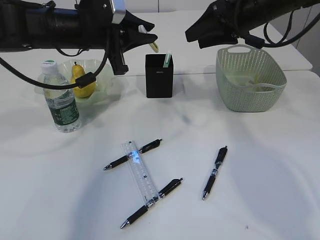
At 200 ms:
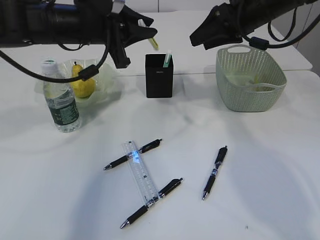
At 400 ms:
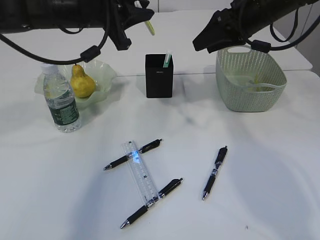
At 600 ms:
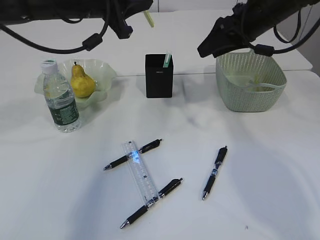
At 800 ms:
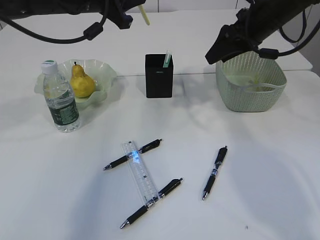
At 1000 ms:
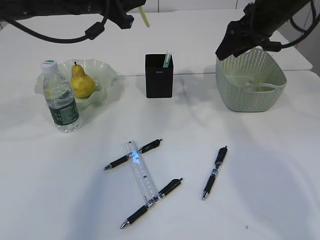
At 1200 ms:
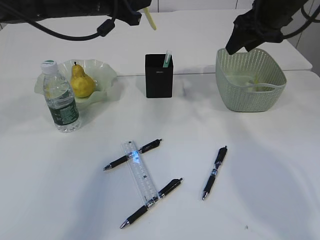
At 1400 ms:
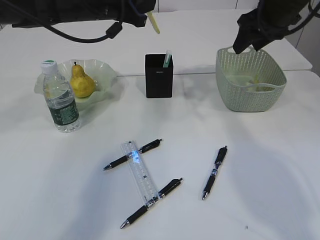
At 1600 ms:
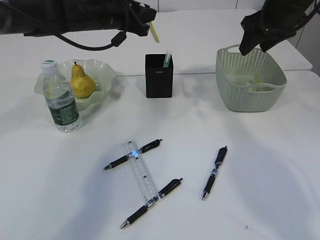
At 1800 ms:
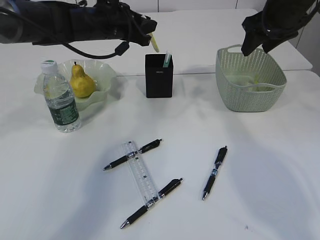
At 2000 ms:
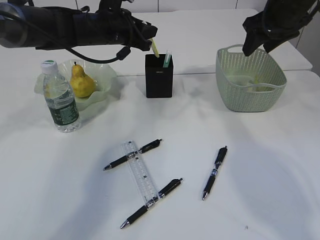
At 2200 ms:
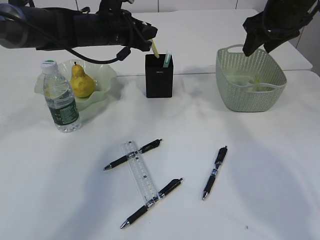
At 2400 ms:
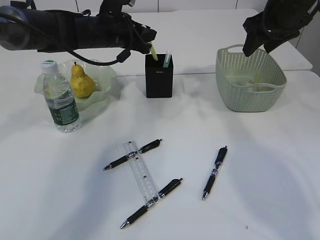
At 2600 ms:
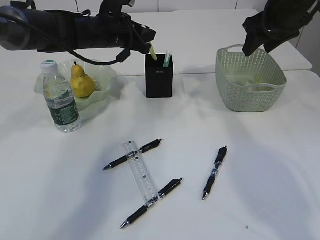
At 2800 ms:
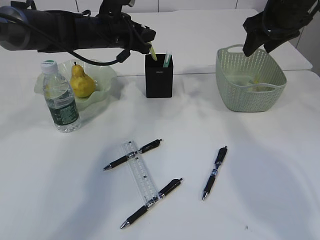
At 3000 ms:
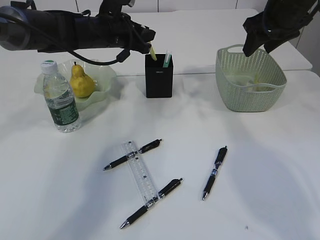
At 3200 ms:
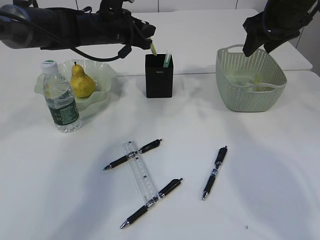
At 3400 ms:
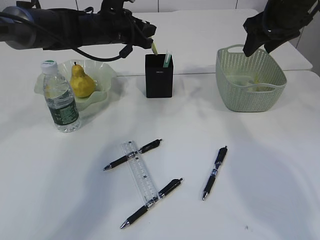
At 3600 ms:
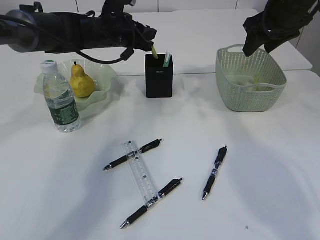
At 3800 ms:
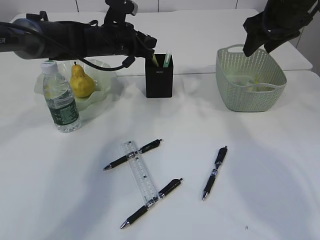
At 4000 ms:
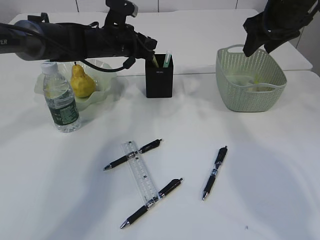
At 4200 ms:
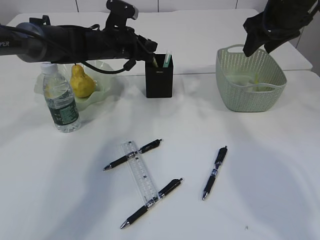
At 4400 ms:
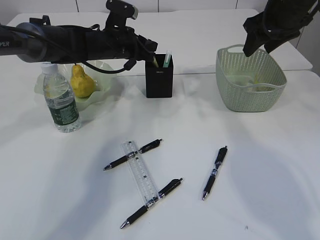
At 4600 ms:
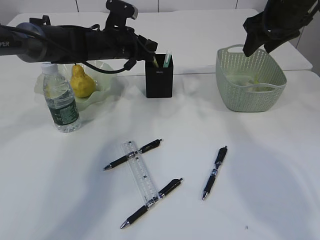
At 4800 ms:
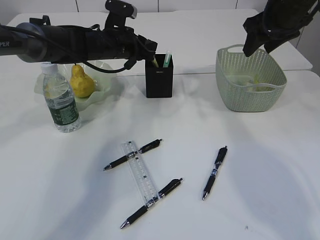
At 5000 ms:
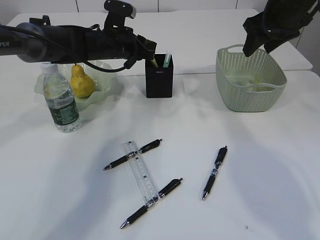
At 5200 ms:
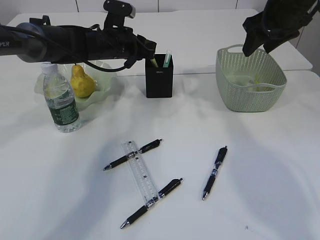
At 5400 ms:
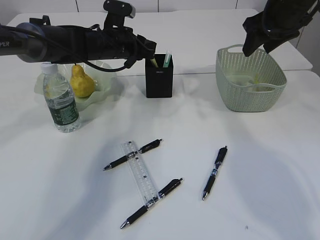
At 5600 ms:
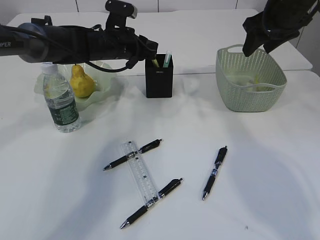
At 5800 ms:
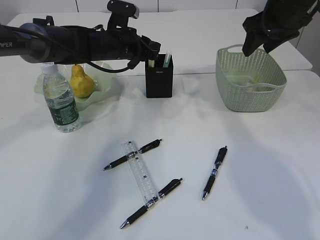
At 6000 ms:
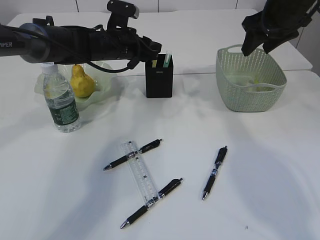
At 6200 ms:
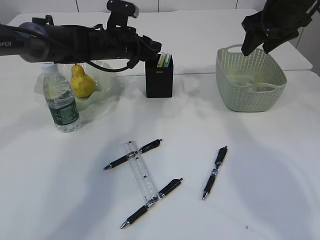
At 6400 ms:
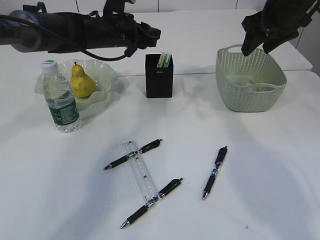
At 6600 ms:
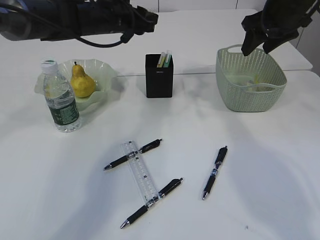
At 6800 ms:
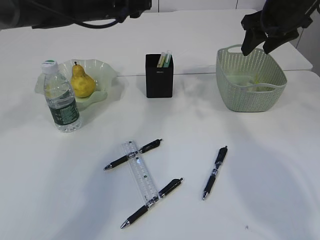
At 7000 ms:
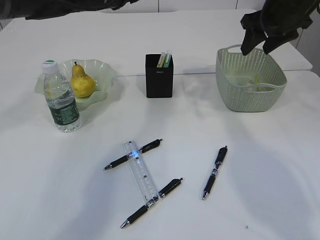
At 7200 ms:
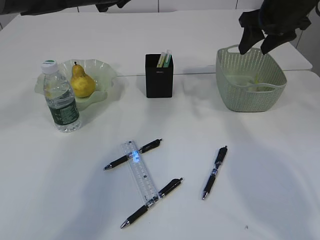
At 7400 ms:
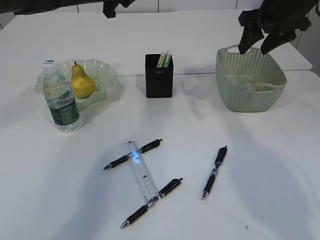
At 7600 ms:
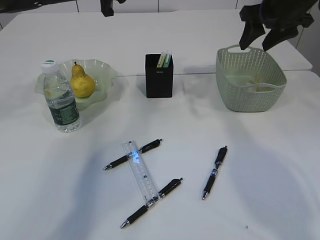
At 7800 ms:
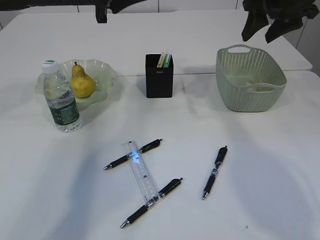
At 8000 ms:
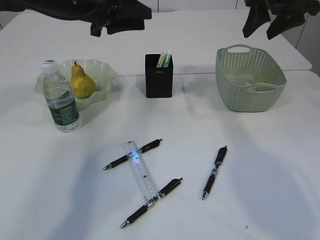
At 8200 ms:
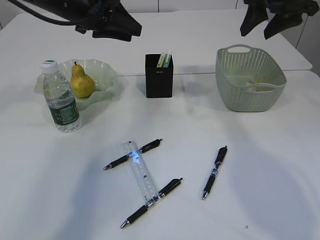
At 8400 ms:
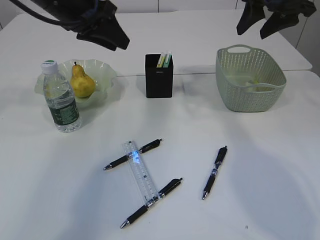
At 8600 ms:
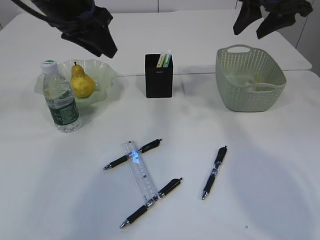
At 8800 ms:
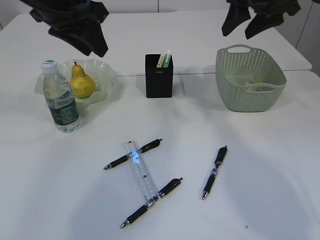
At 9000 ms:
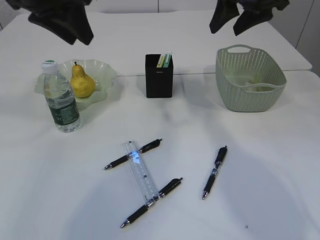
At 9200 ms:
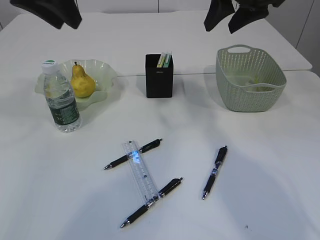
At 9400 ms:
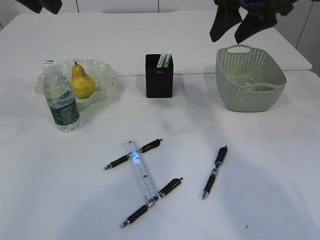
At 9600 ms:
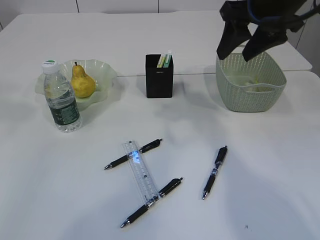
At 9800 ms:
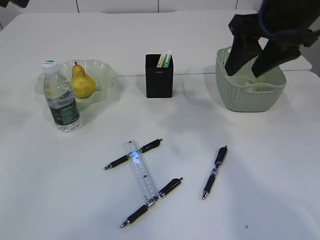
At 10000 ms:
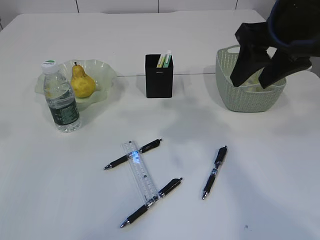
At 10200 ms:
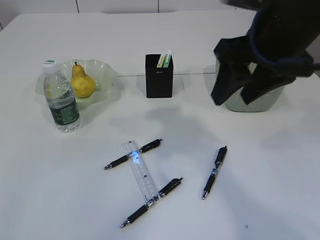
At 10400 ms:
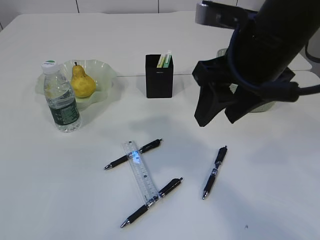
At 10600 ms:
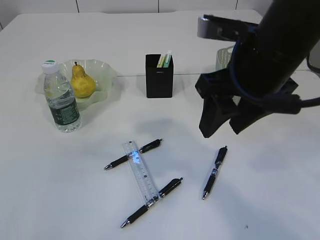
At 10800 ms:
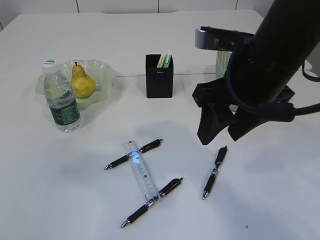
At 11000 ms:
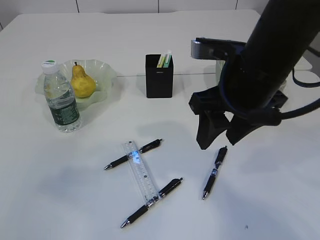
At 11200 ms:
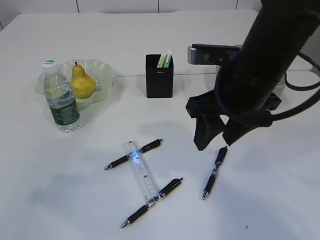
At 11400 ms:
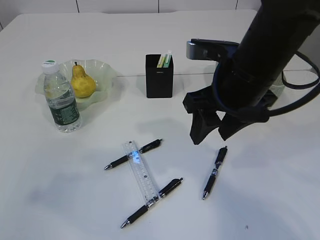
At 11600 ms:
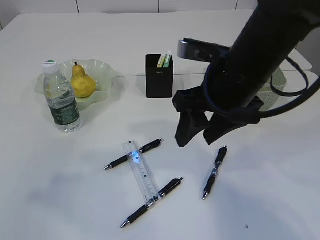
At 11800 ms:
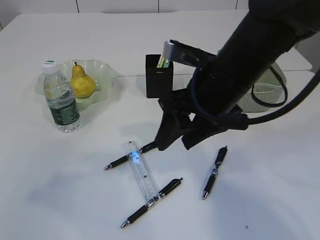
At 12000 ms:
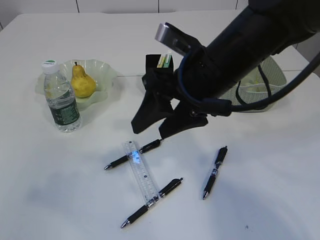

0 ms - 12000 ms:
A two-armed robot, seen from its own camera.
Step, 0 ms - 6600 ms: place the yellow knife into the pen holder.
0 ms - 1600 ms: The left gripper goes approximately 10 cm forward. Meanwhile the right gripper moves to the right, about 5 cm.
1600 ms - 3000 ms: The grippers make only small movements.
3000 ms - 4400 ms: The grippers move only a little.
4400 ms - 6000 ms: The two grippers keep their place.
6000 ms - 7600 ms: The left gripper travels upward by about 15 cm.
7600 ms - 9000 ms: The right gripper travels to the left by approximately 5 cm; the left gripper is displaced backward and upward by some 15 cm.
9000 ms - 10400 ms: The left gripper heads backward, to the left and upward, covering approximately 20 cm; the right gripper is displaced backward and to the left by some 15 cm.
10400 ms - 12000 ms: The left gripper heads backward and to the left, covering approximately 10 cm, while the right gripper moves some 5 cm.

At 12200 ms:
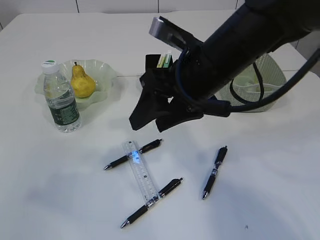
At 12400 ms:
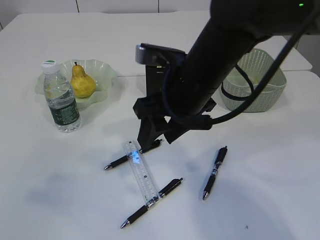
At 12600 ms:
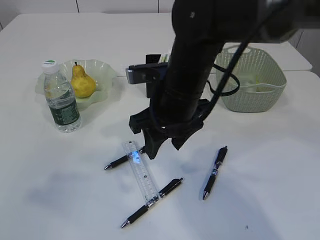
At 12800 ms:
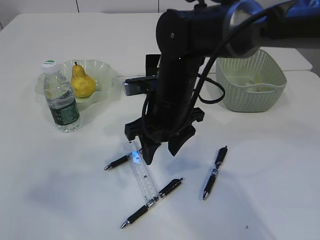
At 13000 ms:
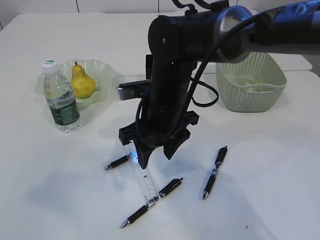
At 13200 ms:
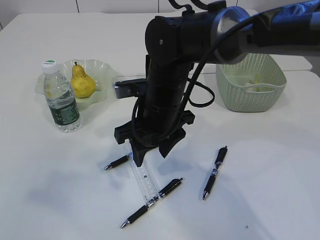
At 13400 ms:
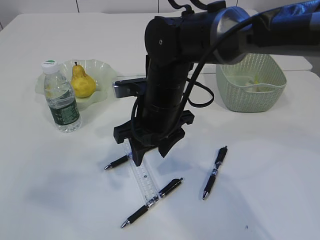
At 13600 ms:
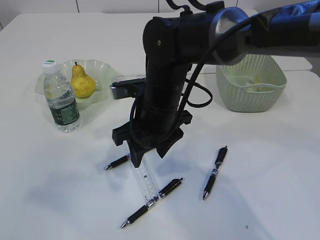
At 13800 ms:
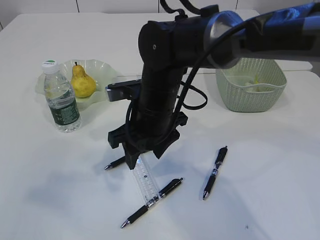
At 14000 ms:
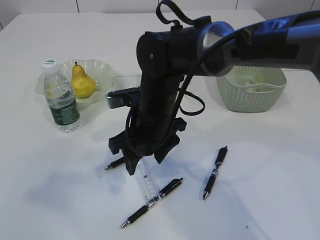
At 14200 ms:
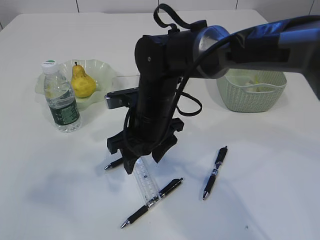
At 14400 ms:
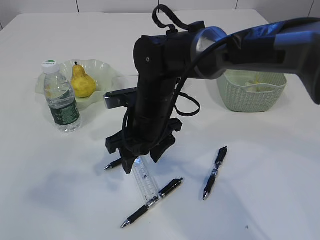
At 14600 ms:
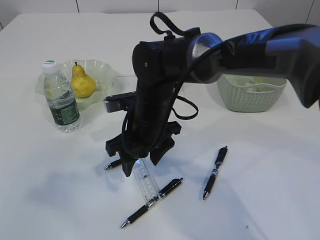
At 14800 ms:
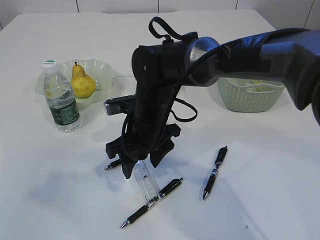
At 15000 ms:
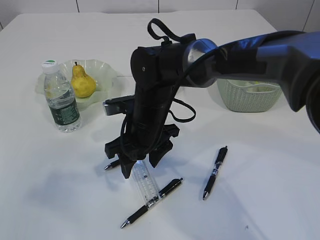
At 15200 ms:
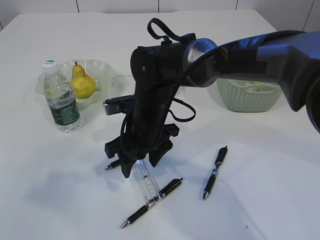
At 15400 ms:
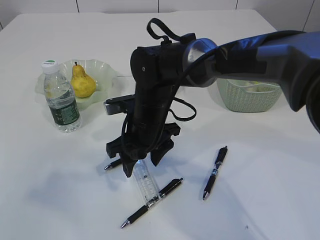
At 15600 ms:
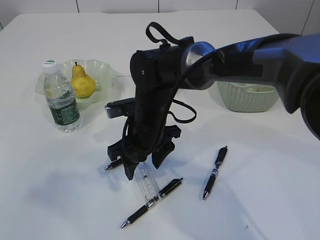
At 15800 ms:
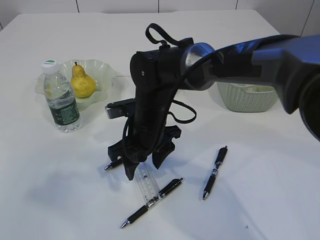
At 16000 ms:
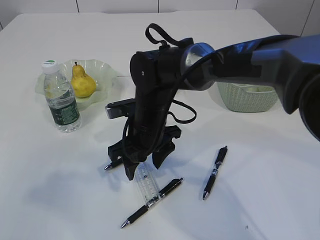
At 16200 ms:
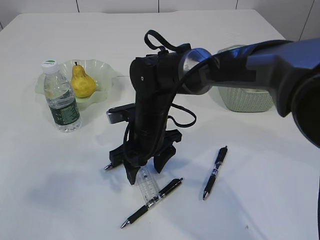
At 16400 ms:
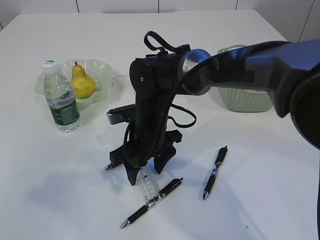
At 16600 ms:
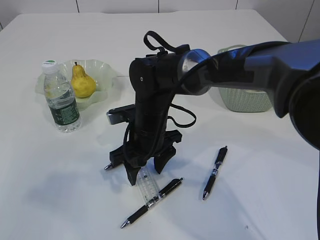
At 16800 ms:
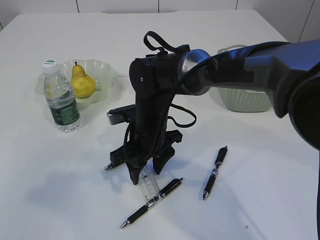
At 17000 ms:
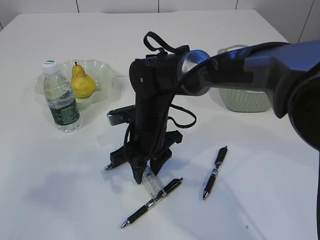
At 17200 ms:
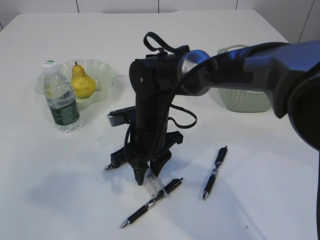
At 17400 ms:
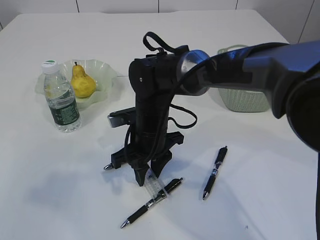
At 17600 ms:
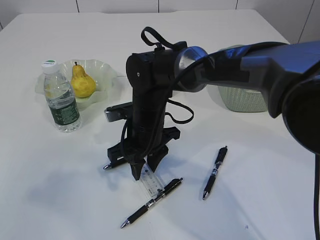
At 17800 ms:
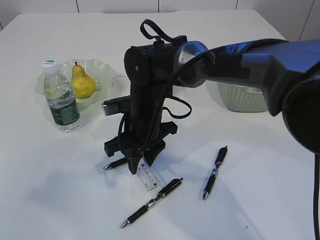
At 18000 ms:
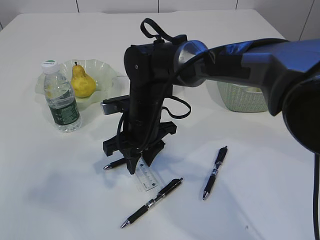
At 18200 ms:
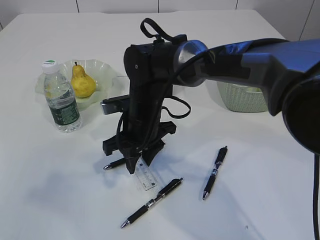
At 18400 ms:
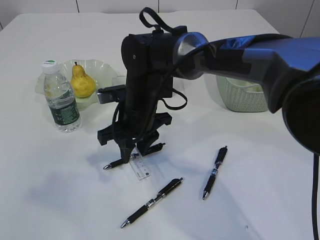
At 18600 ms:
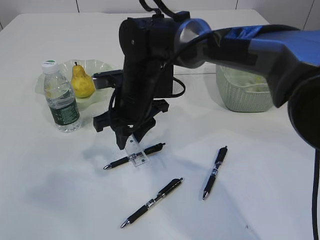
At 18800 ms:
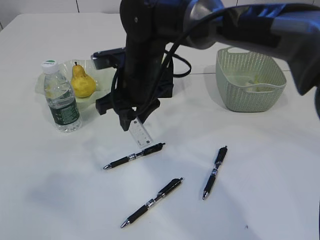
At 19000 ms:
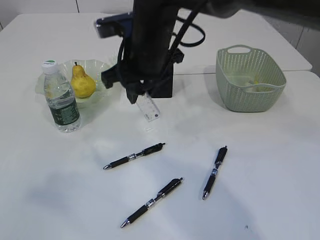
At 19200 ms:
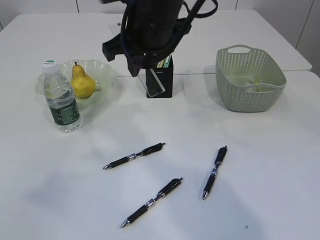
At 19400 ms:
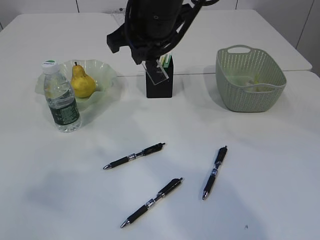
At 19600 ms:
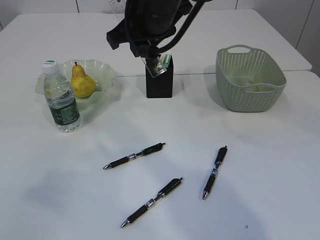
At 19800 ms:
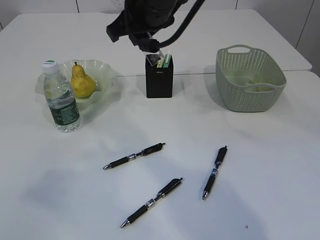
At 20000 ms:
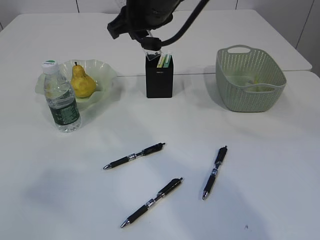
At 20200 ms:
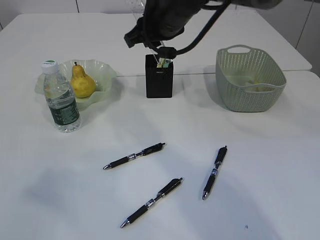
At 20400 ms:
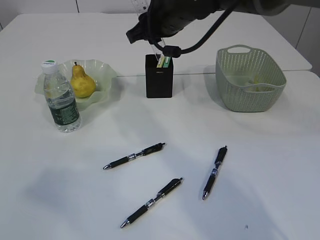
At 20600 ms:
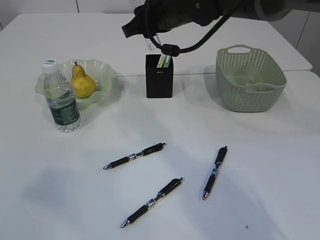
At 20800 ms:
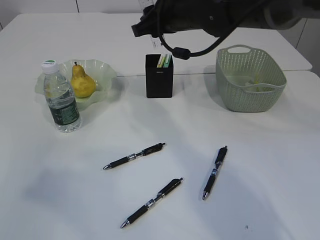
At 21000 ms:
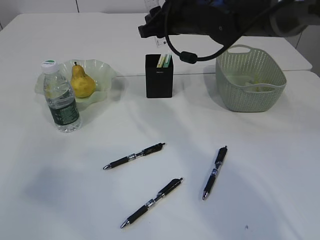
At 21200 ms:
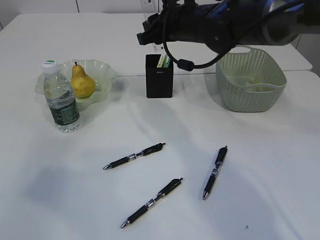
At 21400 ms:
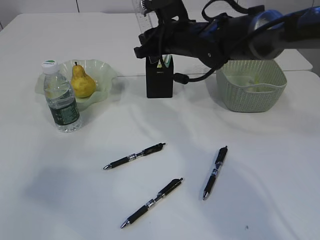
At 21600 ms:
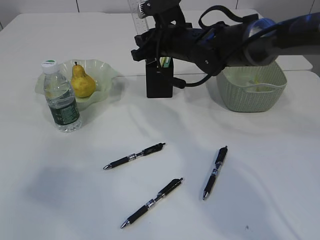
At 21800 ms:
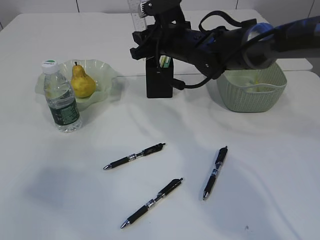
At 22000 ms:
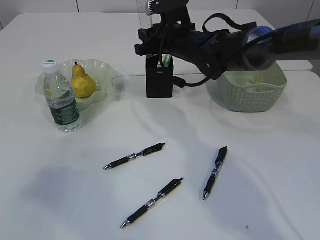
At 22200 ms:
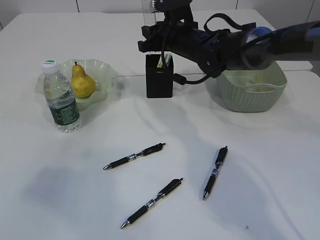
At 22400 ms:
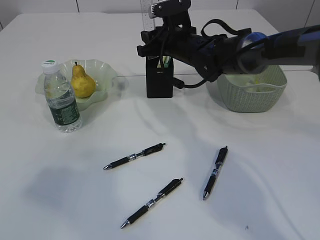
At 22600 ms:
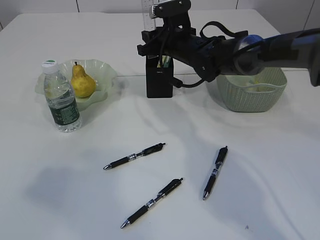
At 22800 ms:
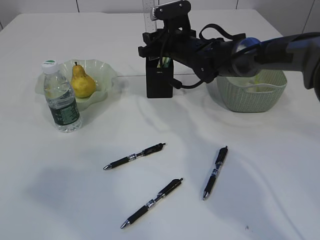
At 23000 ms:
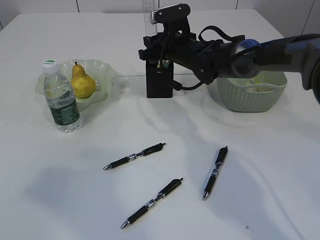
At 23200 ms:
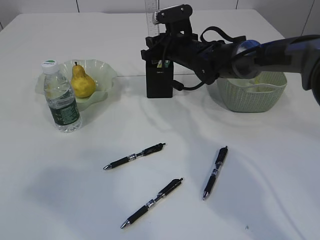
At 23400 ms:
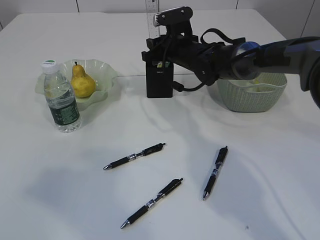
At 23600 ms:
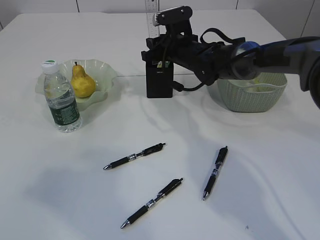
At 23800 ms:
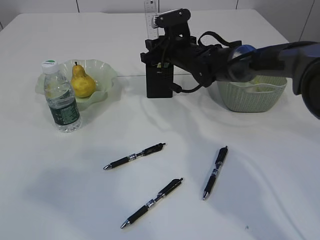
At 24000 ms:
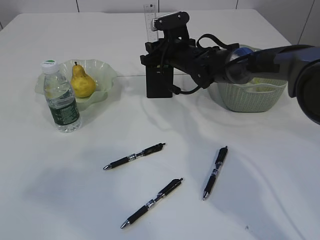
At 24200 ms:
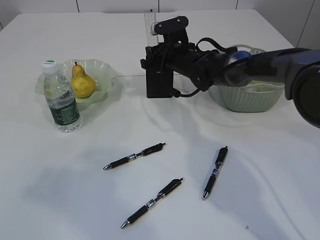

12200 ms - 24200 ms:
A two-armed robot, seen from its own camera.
Step, 12200 ms - 18600 ms: pick up the ruler.
12200 ms - 13800 ms: The right gripper moves downward and to the left, about 10 cm.
13800 ms - 15200 ms: The grippers make only small movements.
15200 ms - 16600 ms: There are only small adjustments of the grippers.
16600 ms - 18200 ms: The right gripper closes.
18200 ms - 19800 ms: The right gripper moves upward, approximately 20 cm.
19800 ms - 21200 ms: The right gripper moves downward, forward and to the right, some 10 cm.
21200 ms - 22600 ms: The right gripper shifts some 5 cm downward.
22600 ms - 24200 ms: The grippers move only a little.
